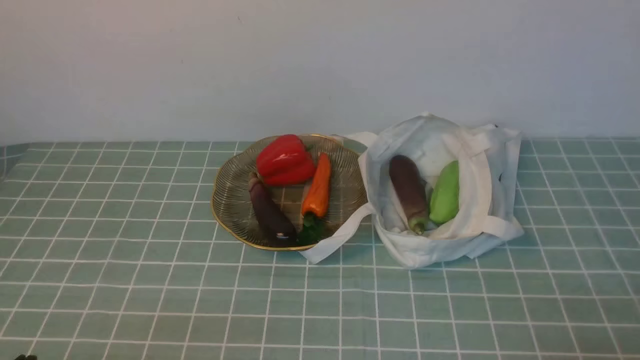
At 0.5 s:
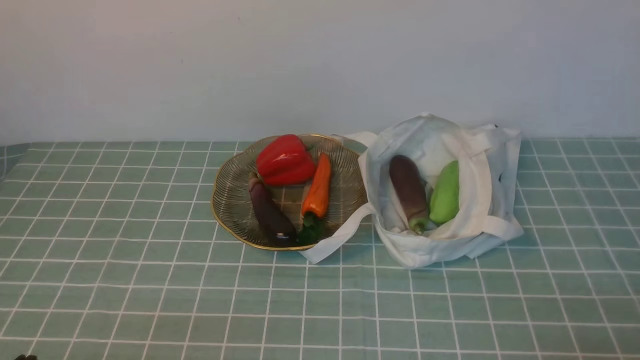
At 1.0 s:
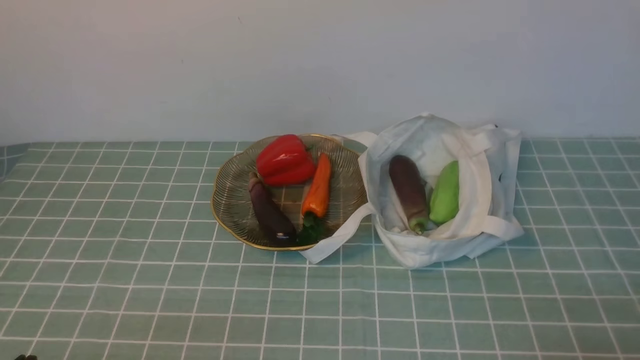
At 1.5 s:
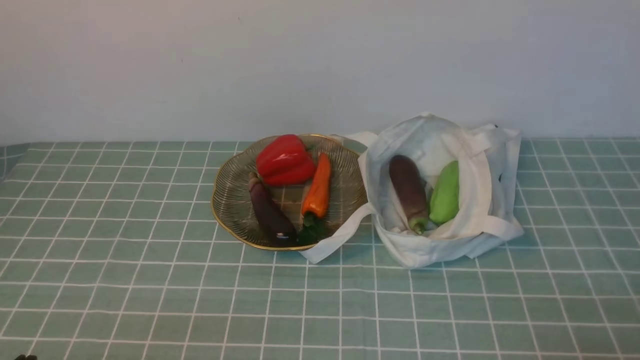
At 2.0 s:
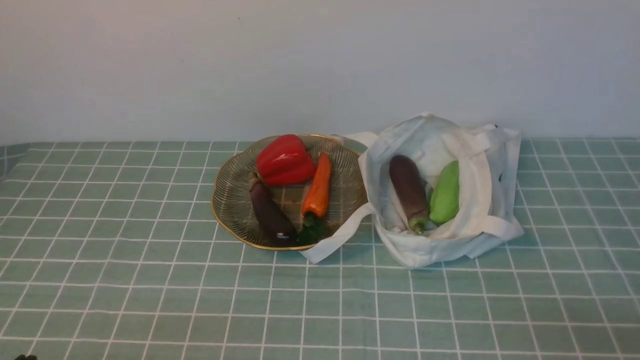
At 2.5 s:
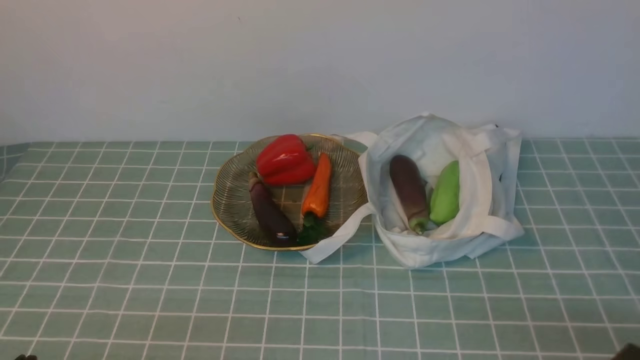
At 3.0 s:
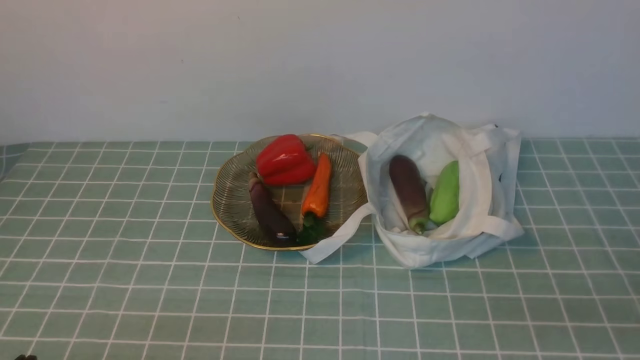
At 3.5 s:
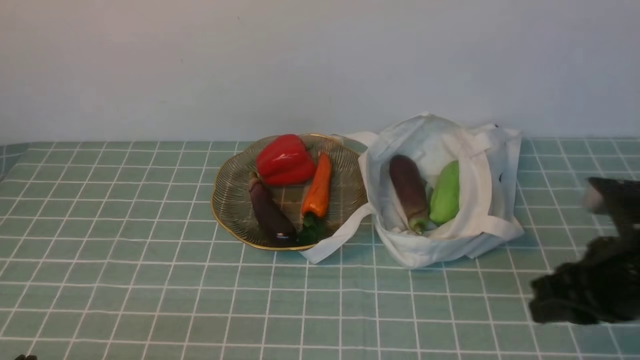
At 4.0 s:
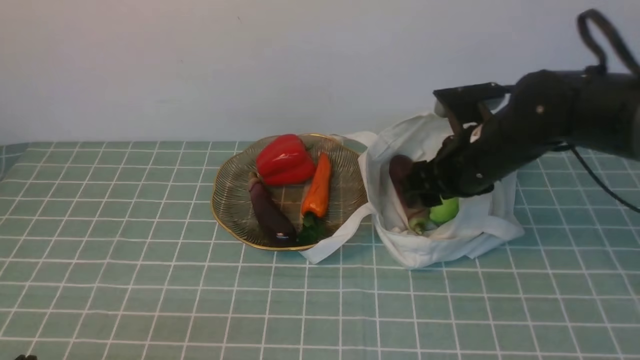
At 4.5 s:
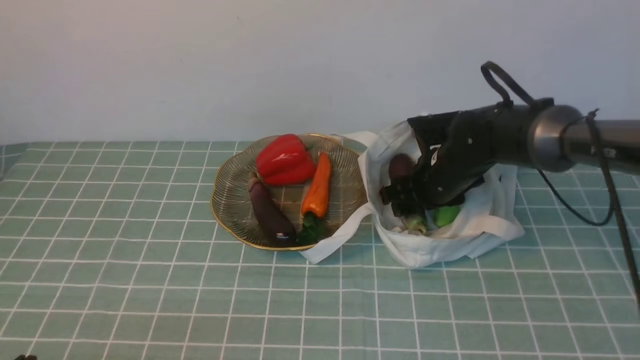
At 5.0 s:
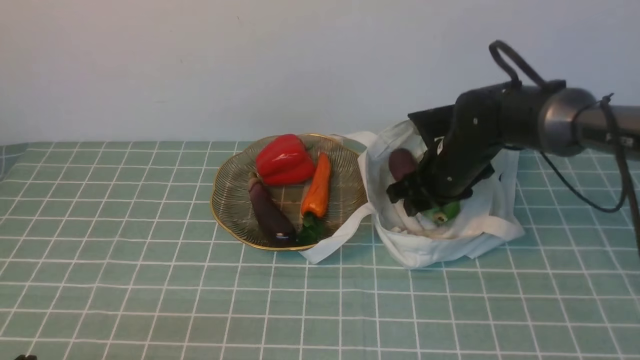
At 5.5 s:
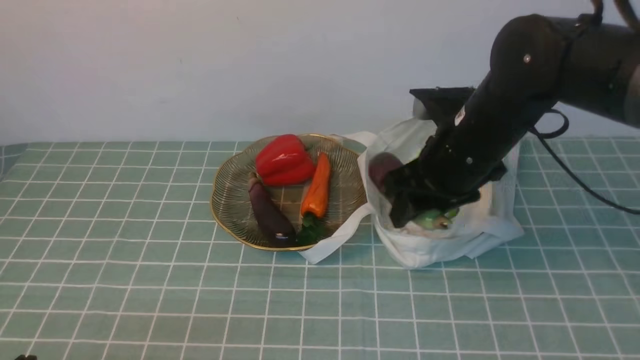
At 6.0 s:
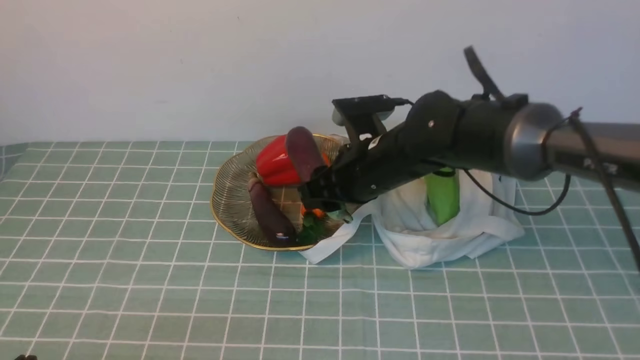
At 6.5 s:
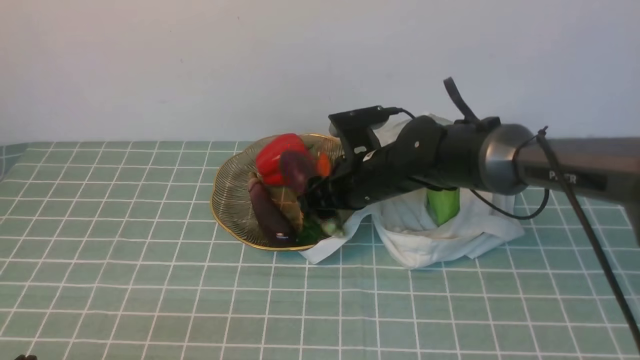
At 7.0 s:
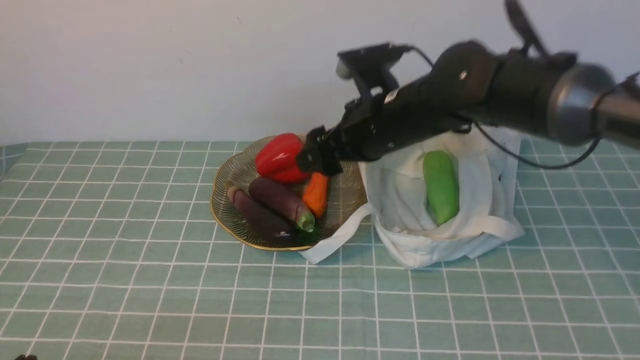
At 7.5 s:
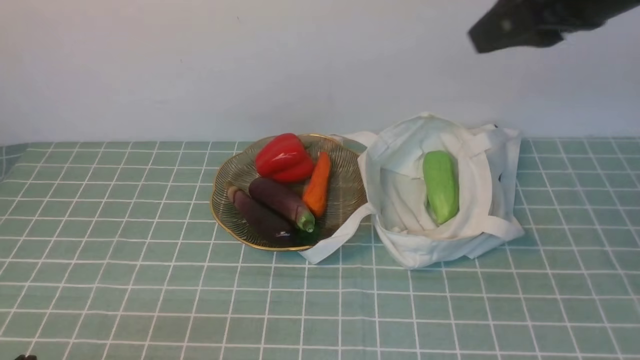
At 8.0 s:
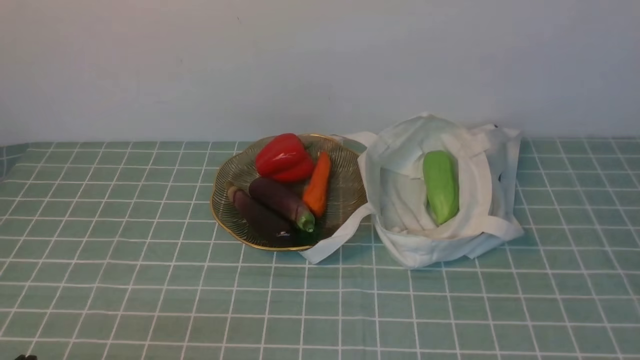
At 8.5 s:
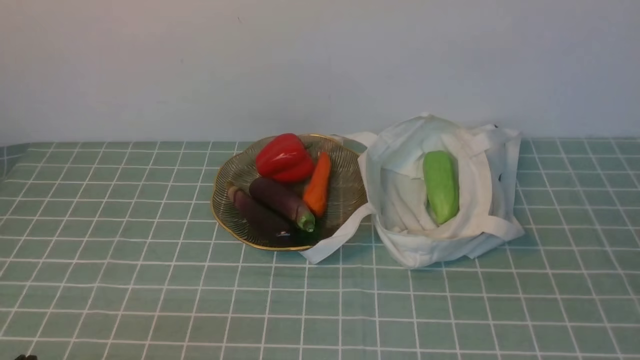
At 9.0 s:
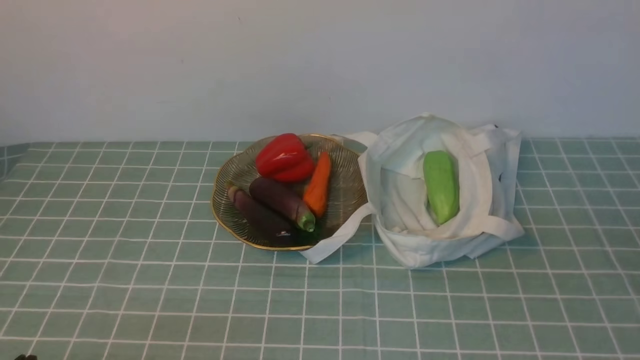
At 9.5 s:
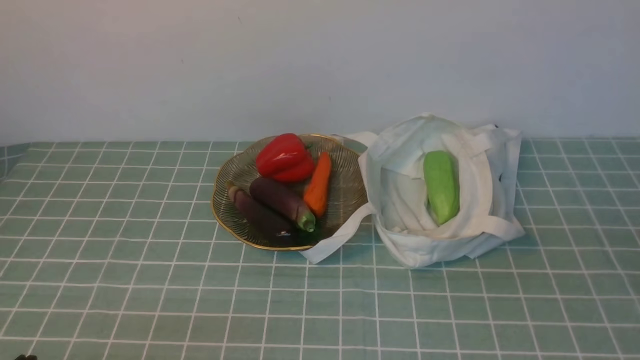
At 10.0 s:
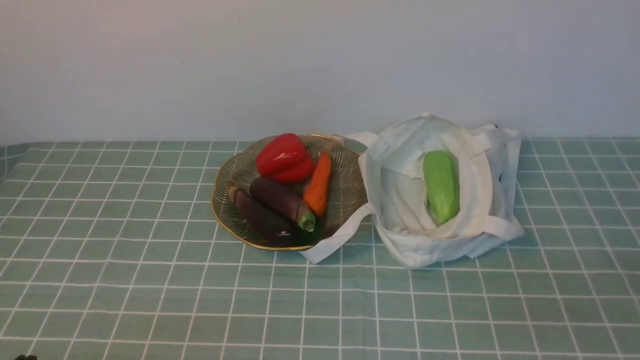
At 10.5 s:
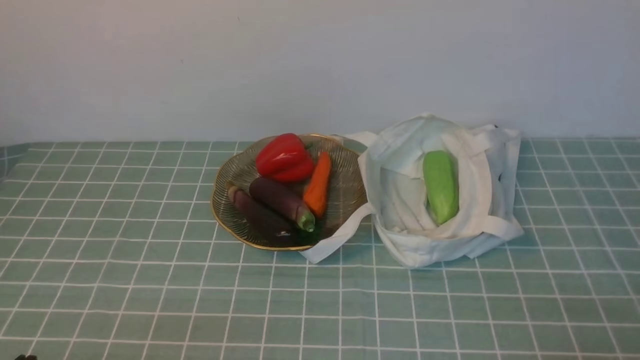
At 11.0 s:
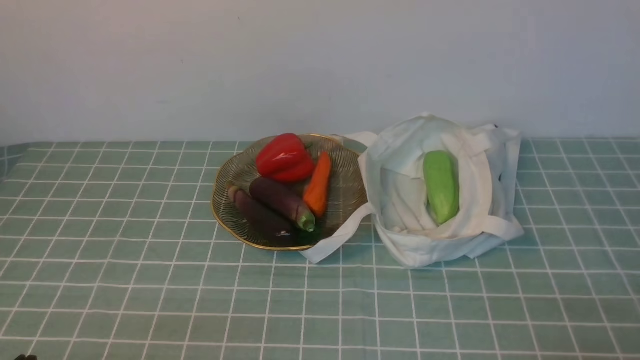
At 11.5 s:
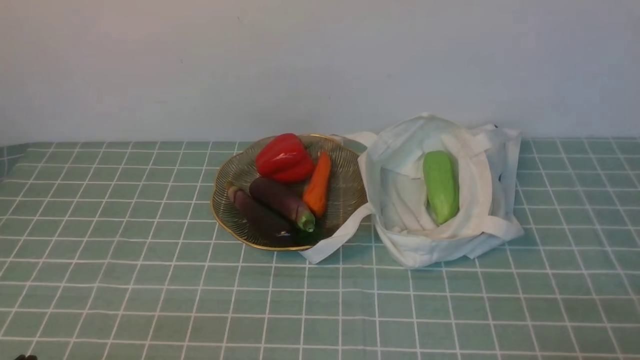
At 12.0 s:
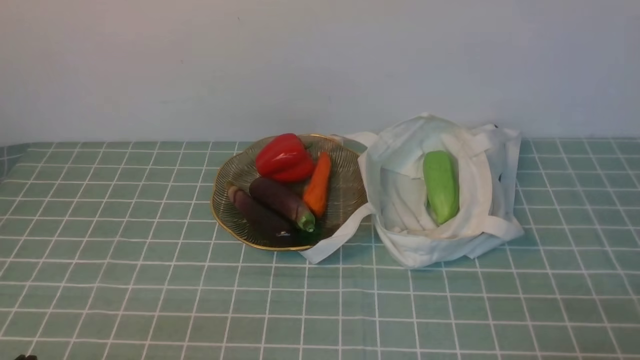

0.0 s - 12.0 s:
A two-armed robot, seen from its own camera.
Task of the whole recording: take vegetables from cloth bag on blue coffee tablecloth place on plate.
Step, 0.0 s - 4.5 s: Grasp the eggplant with right gripper.
Step, 5.0 s - 6.5 s: Place the eggplant on the plate with right gripper.
2.0 s - 4.0 s: The right gripper travels forward and to the left by some 35 cm, and opens its fingers.
4.0 s - 6.0 s: The right gripper goes up and down, roughly 10 cm each way, reversing 2 times.
6.0 s - 8.0 s: The right gripper is displaced upward, backward and to the right by approximately 40 cm, and closes up.
